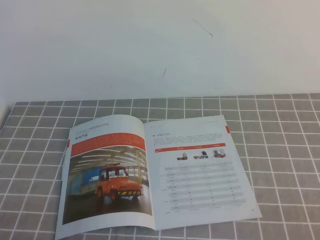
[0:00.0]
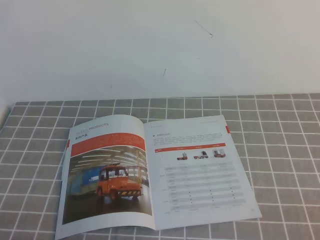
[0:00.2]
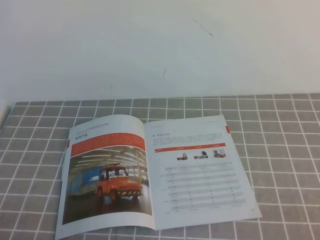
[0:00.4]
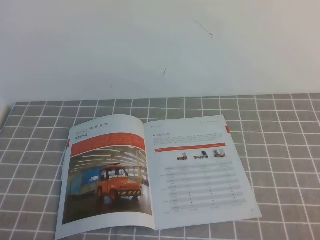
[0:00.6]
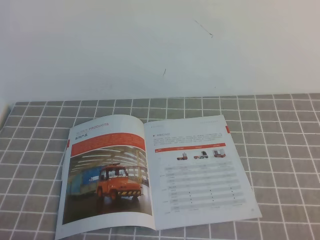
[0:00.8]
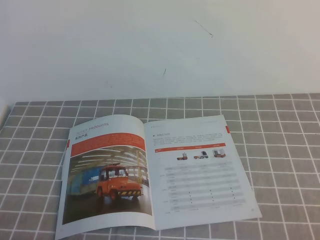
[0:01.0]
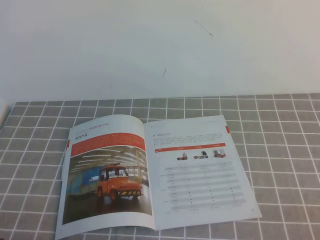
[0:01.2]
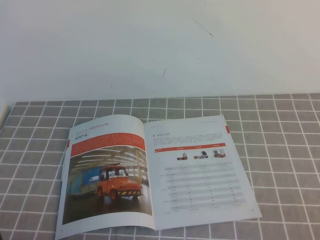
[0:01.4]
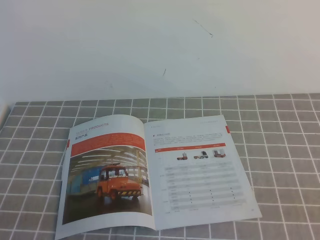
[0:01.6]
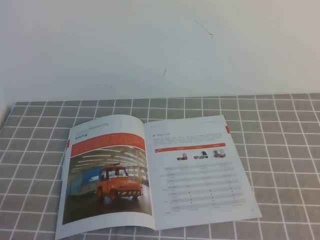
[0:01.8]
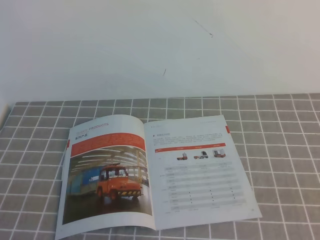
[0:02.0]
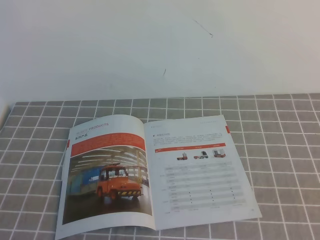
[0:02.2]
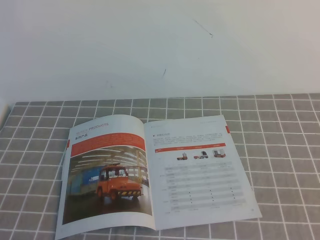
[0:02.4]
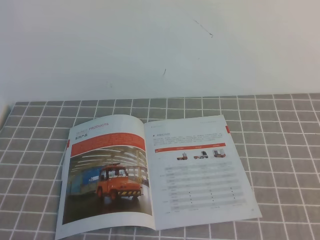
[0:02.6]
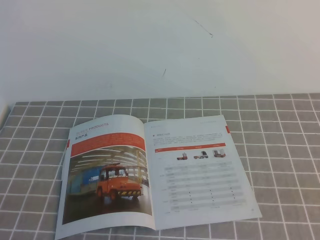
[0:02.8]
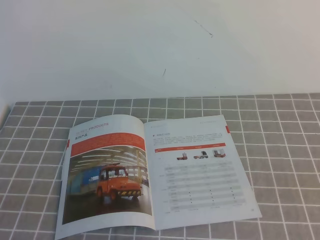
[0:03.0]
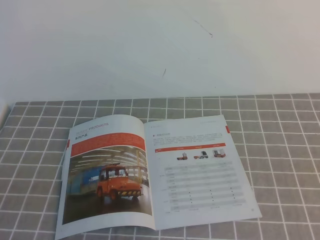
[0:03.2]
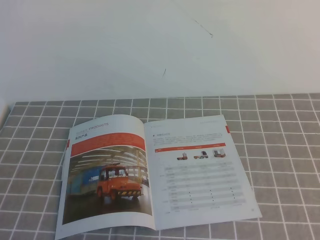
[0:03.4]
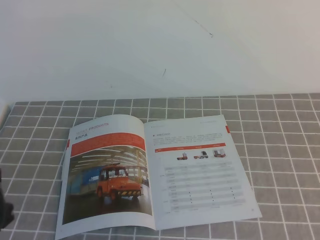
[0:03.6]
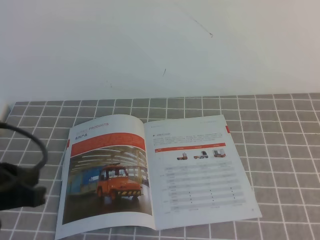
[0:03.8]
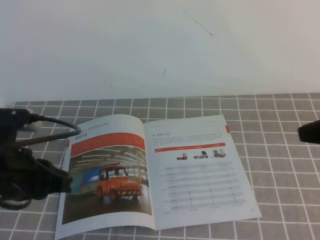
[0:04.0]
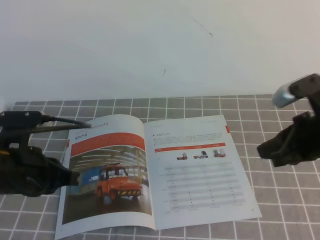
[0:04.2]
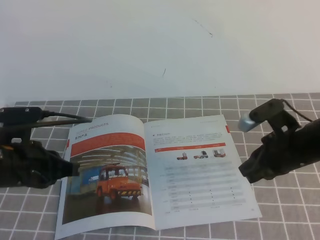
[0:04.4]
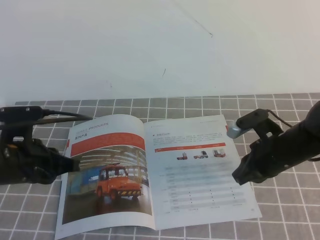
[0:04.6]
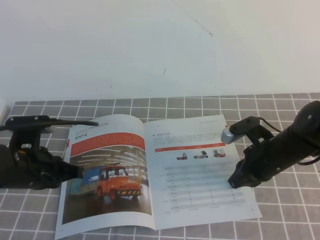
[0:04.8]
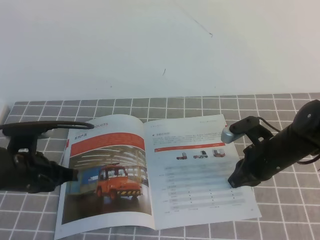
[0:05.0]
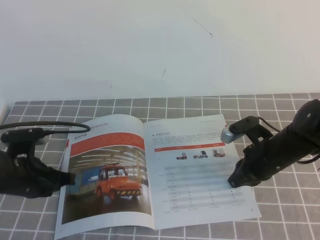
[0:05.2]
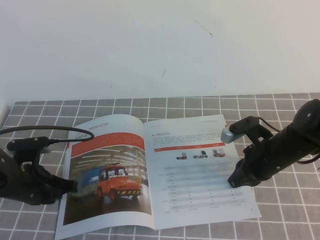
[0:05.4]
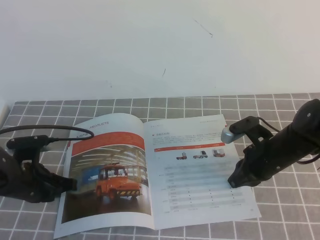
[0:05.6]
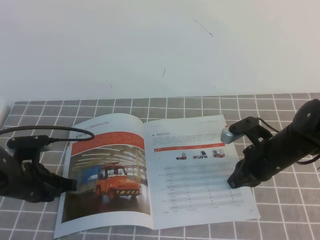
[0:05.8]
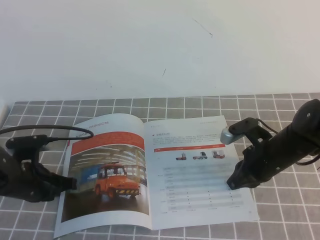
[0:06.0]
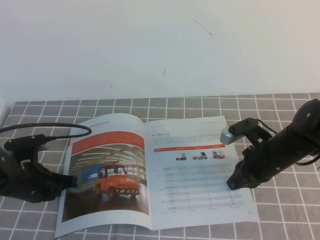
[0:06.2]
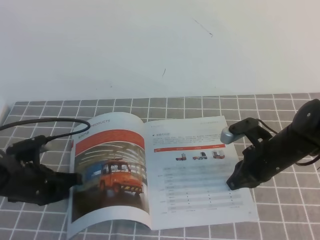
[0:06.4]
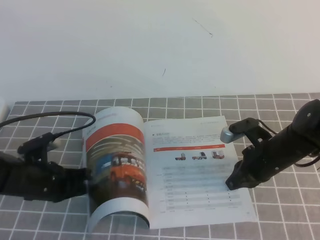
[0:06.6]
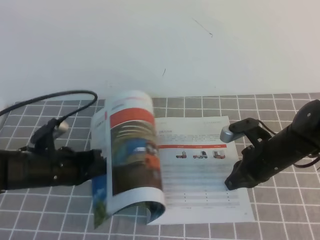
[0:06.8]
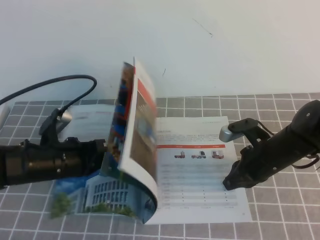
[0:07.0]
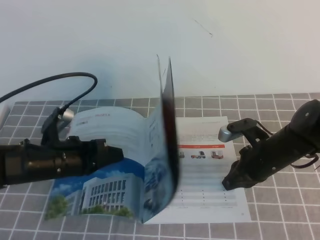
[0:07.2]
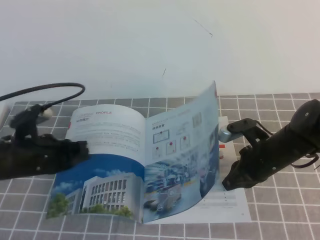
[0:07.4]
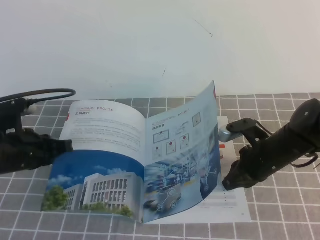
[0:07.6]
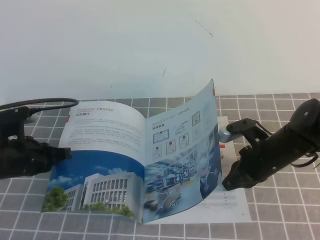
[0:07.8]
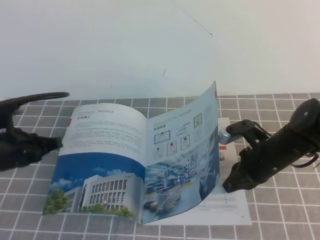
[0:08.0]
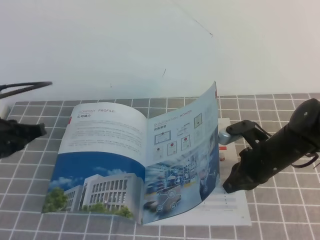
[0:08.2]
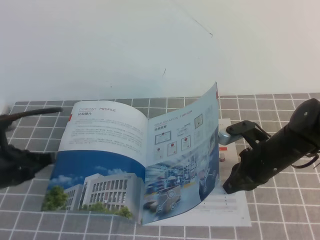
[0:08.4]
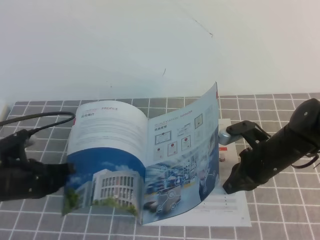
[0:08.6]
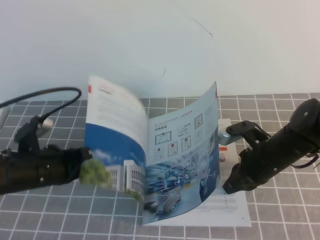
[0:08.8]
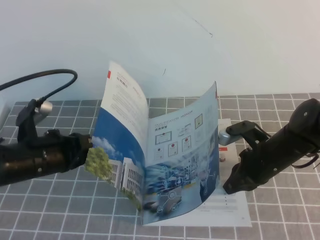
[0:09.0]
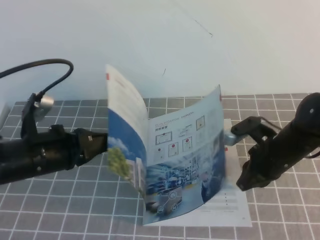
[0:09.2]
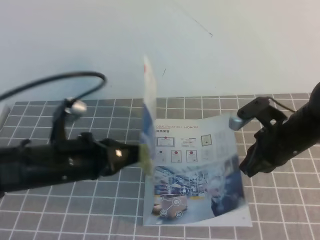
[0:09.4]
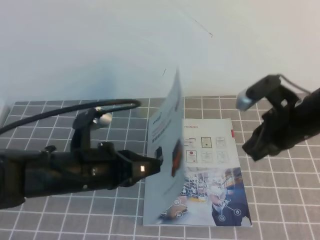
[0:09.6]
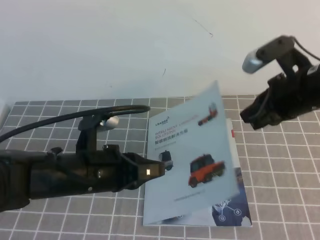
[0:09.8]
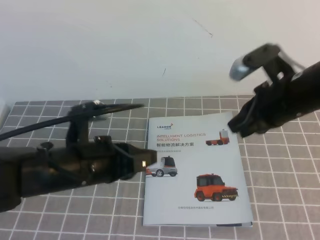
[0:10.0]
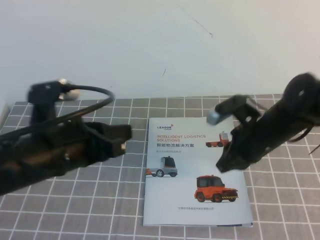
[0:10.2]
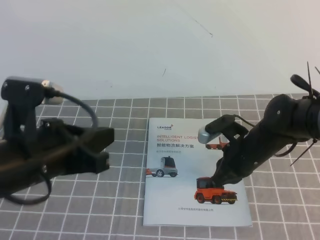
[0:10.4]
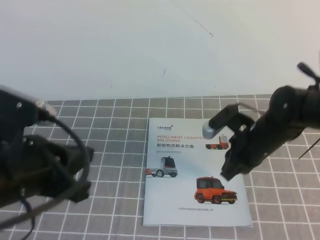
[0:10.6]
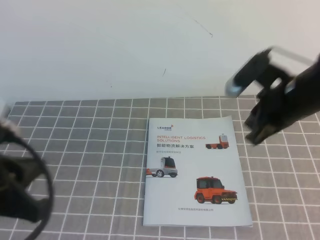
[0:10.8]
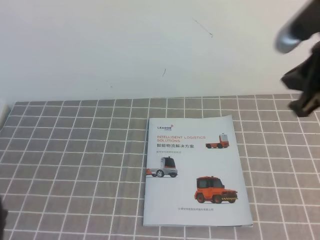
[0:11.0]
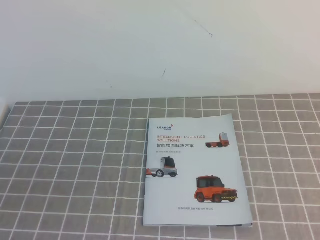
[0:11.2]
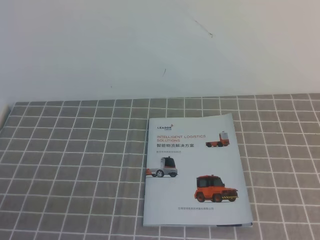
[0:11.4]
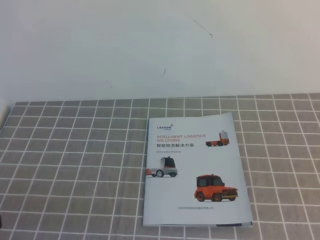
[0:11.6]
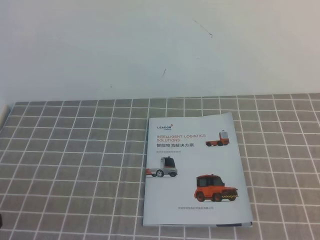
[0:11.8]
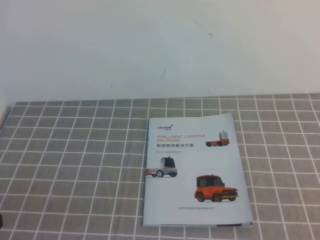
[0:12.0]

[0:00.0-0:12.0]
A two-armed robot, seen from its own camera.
Task of the whole recording: on the grey tablecloth, hold the book with one hand and close it with the other.
0:03.0 to 0:04.4: The right gripper shifts roughly 30 cm forward and to the left. Meanwhile the left gripper goes some 20 cm forward.
0:04.4 to 0:06.0: Both grippers travel together downward, roughly 10 cm.
0:06.0 to 0:07.6: The left gripper shifts approximately 5 cm upward.
0:09.0 to 0:10.4: The right gripper travels upward and back again, approximately 15 cm each way. Meanwhile the left gripper goes approximately 10 cm upward and backward.
0:10.4 to 0:12.0: The right gripper heads backward and to the right, covering some 35 cm; the left gripper goes some 15 cm backward and to the left.
